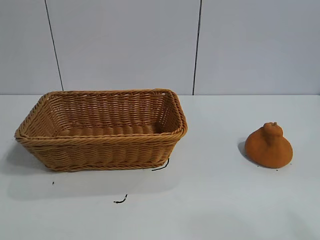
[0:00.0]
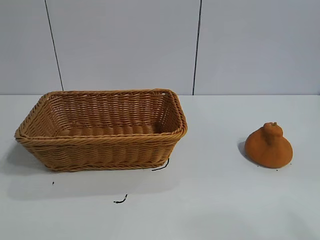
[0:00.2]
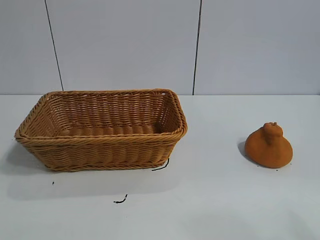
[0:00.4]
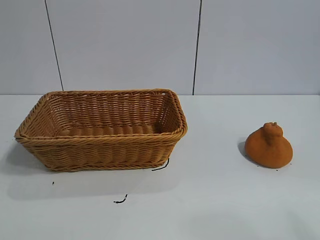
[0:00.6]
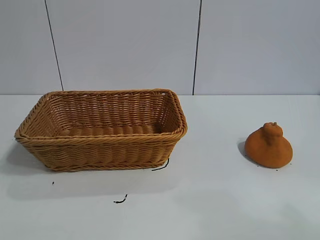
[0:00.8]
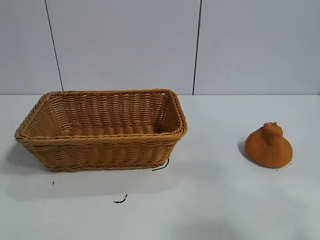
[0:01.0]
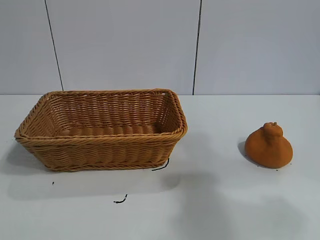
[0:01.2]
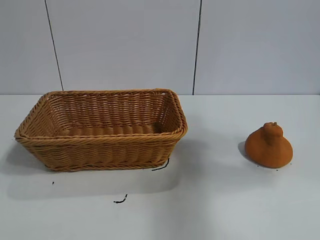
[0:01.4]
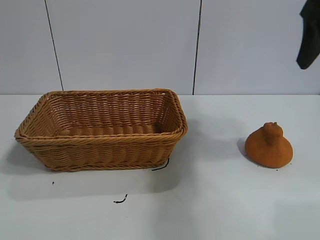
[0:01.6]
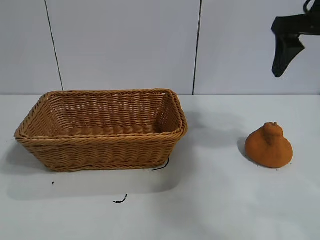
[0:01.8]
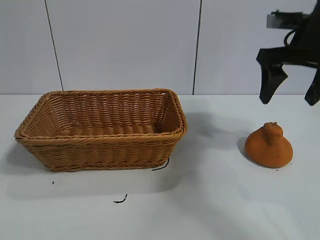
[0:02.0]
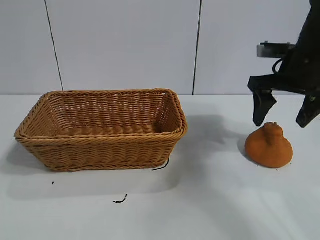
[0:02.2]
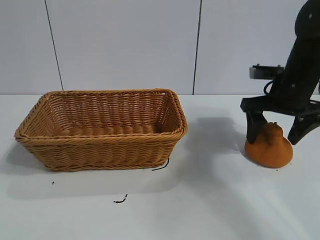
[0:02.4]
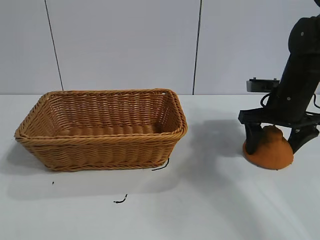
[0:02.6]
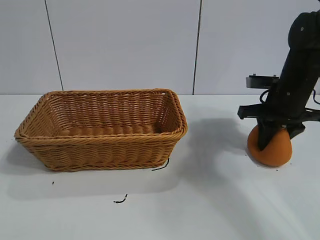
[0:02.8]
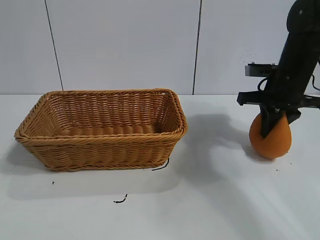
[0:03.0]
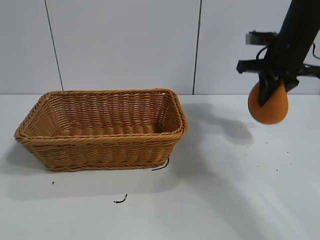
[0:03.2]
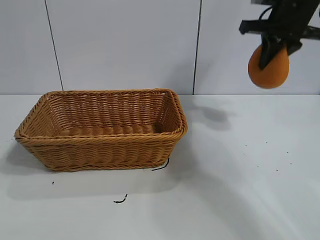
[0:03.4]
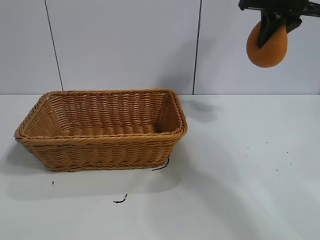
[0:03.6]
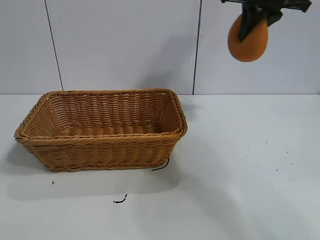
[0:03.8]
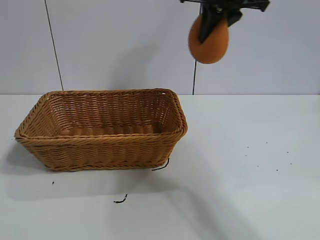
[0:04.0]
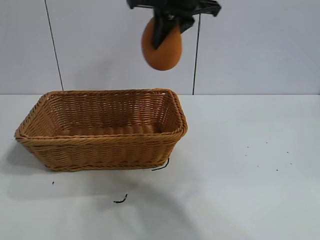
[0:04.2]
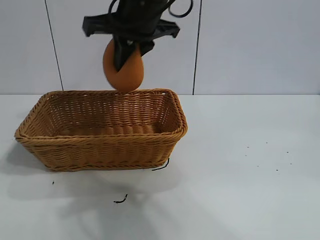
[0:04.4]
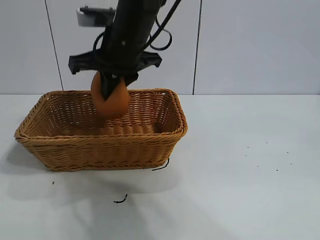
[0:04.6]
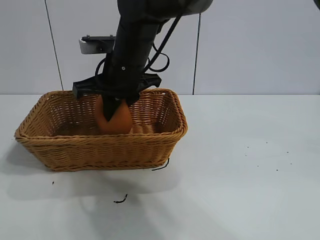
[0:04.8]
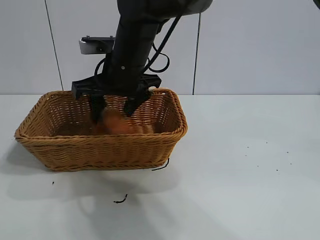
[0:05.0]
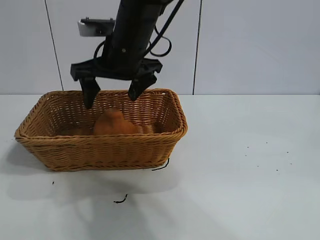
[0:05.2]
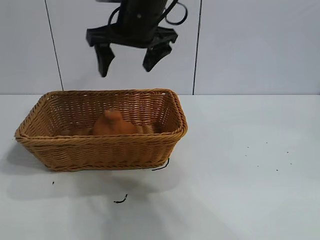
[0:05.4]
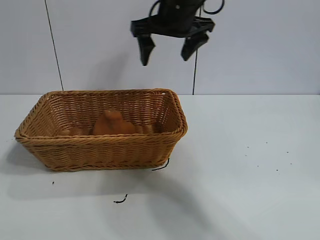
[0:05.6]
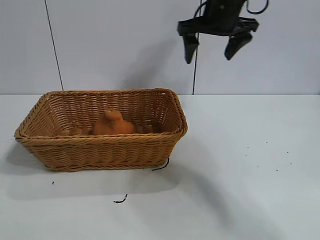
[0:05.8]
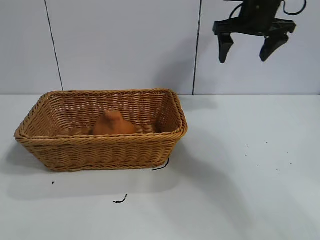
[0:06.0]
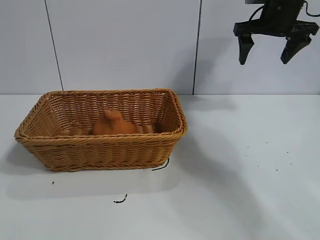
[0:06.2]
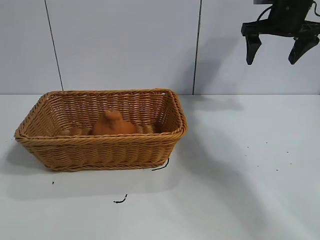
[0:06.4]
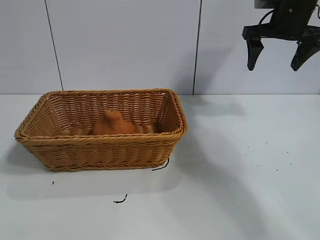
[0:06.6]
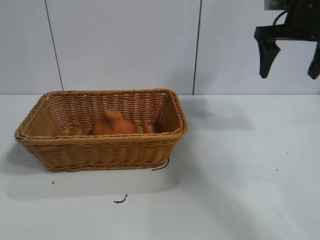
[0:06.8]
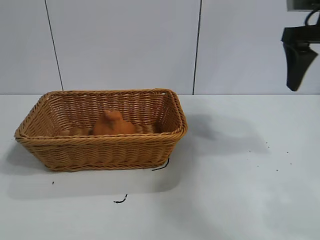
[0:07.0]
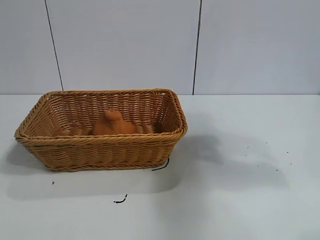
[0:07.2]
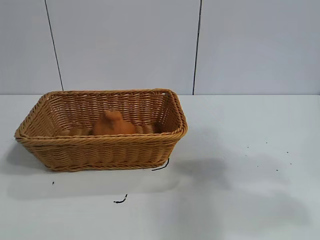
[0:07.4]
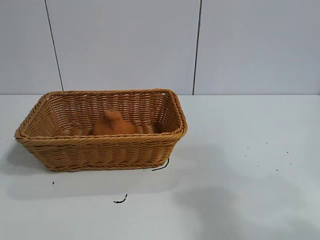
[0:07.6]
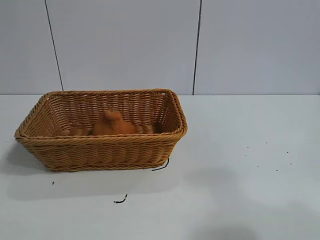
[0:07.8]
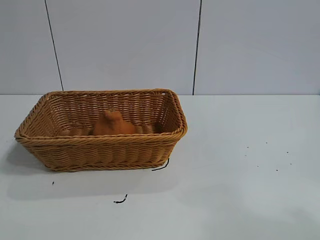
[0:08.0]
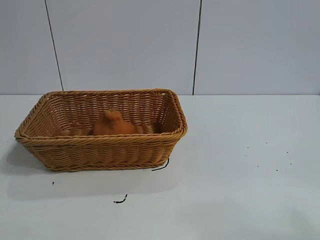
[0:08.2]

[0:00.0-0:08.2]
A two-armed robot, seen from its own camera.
Task of the whole recording: pick up the orange and put it into the basket.
Step, 0:00.8 to 0:03.0: Grasp the orange with right gripper.
Step, 0:03.2 to 0:05.0: Place the orange in the basket with right gripper.
